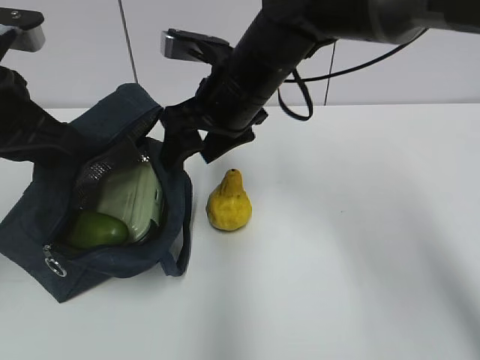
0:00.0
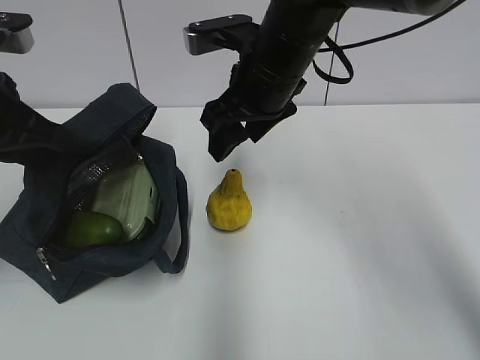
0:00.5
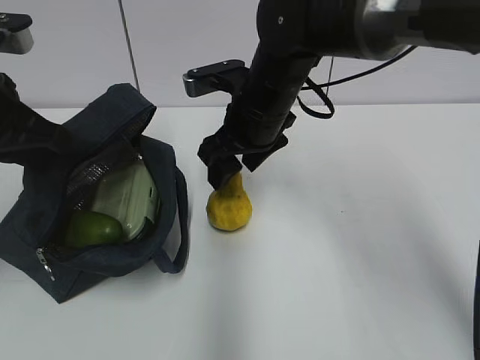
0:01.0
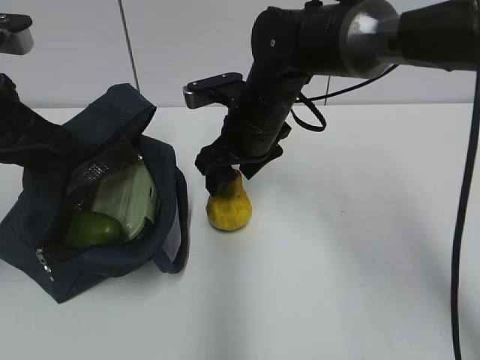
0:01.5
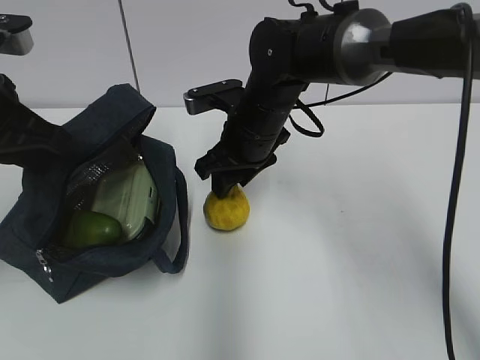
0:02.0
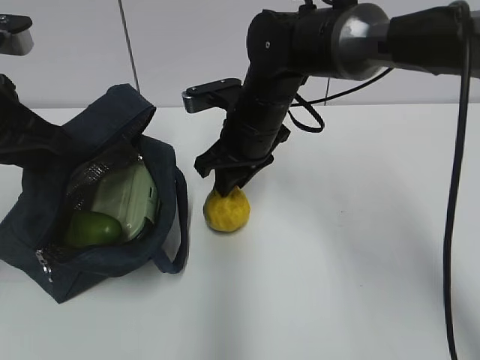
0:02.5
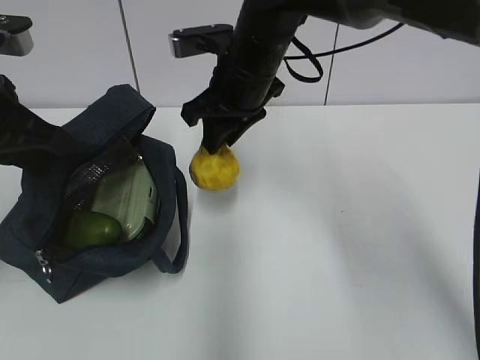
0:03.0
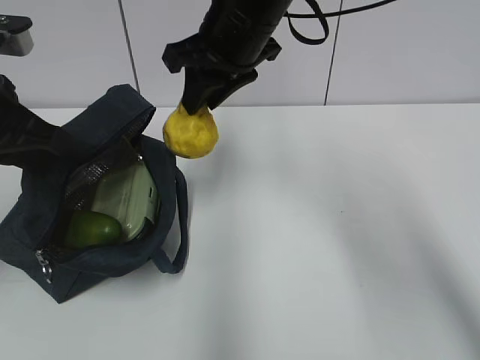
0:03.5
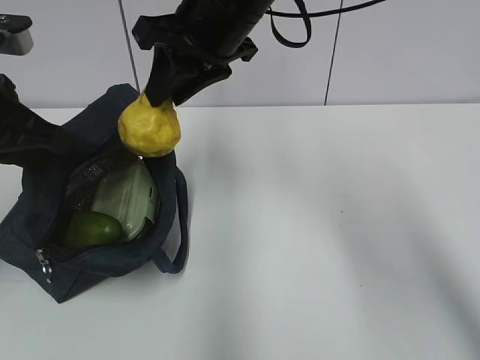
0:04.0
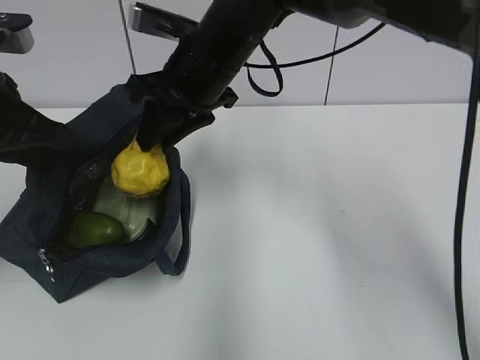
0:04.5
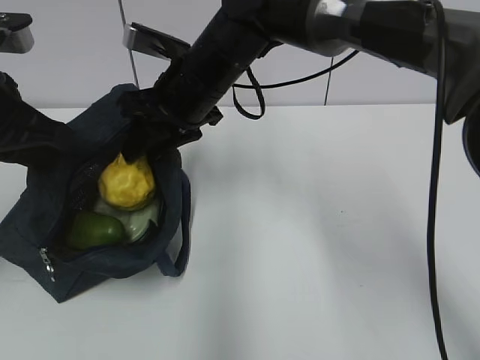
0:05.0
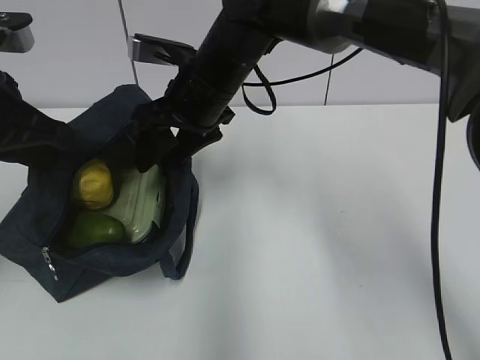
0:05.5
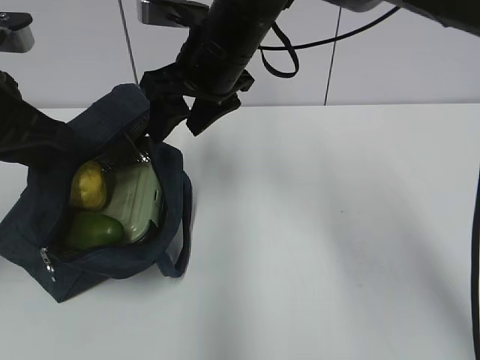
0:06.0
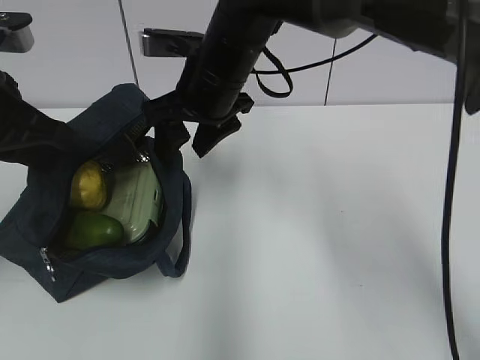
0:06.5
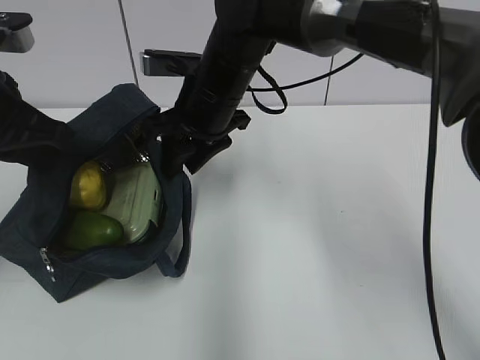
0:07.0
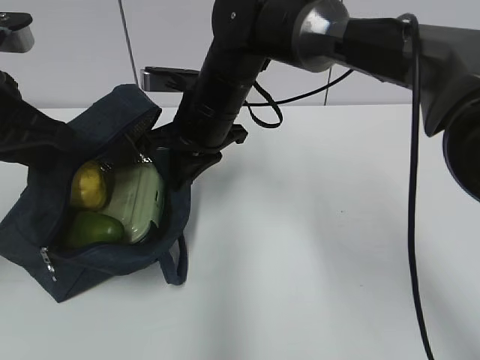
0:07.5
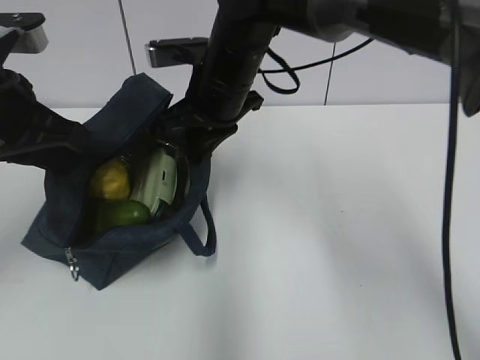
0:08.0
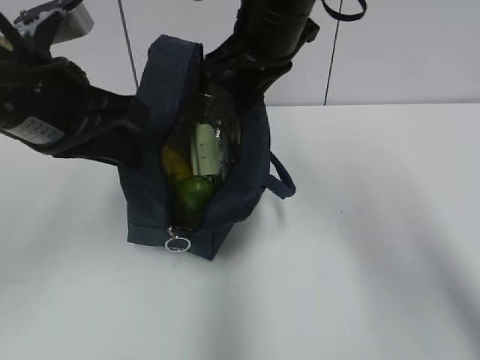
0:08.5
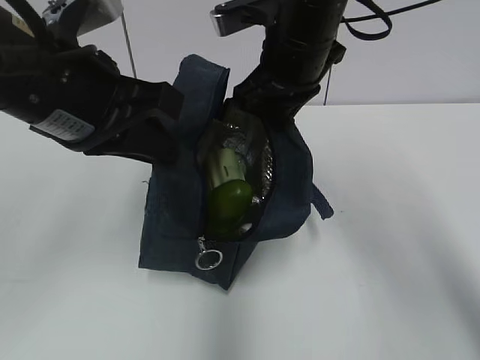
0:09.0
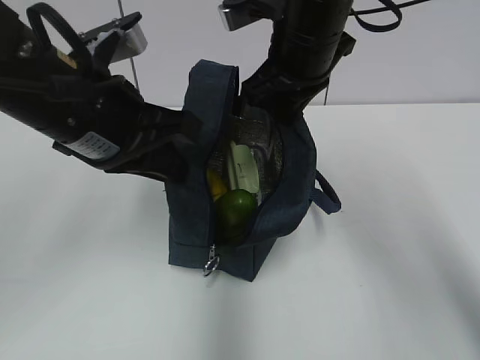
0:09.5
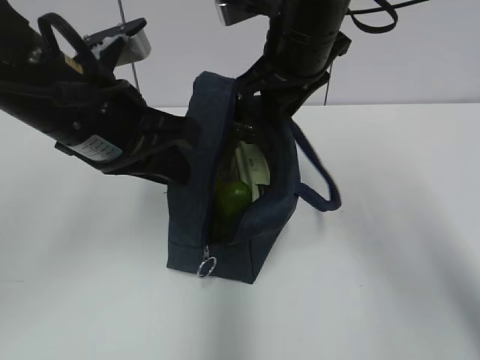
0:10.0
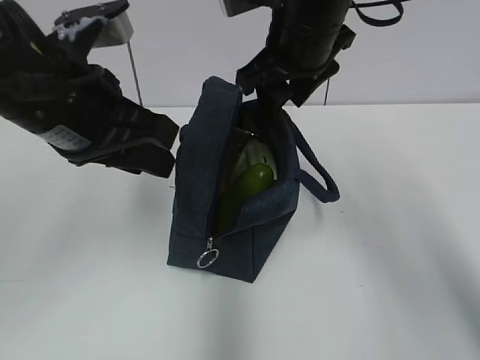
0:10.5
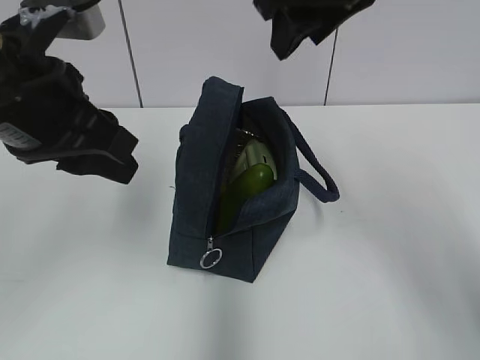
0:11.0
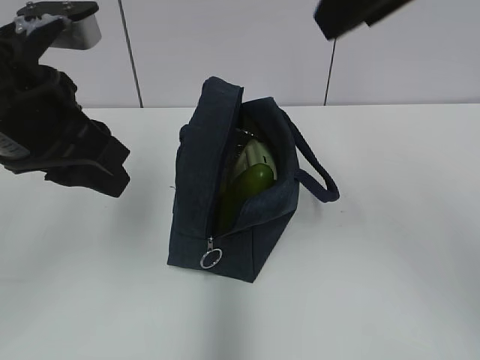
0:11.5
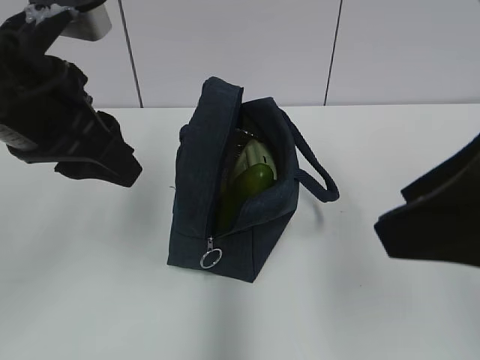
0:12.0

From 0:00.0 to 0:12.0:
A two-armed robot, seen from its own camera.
From 0:00.0 to 0:02.0: The right gripper goes roughly 5 cm downward.
From 0:02.0 to 0:04.0: The right gripper heads upward, covering roughly 15 cm.
From 0:04.0 to 0:06.0: The right gripper opens its fingers.
From 0:06.0 to 0:08.0: The right gripper closes.
From 0:08.0 to 0:10.0: The right gripper shifts approximately 10 cm to the right and upward; the left gripper moves to the right, roughly 10 cm.
From 0:10.0 to 0:12.0: The right gripper heads backward, covering some 25 cm, and opens its fingers; the left gripper shifts by about 5 cm, and opens its fingers.

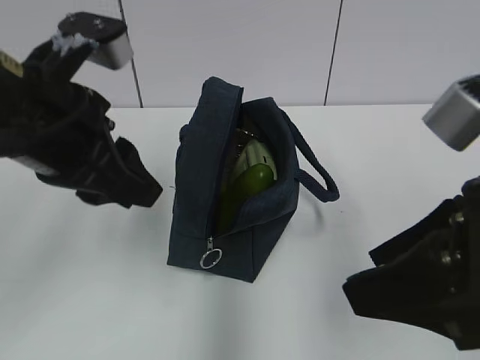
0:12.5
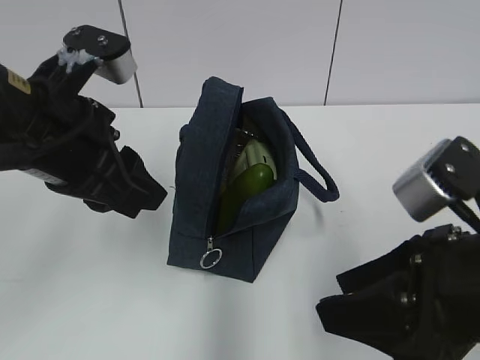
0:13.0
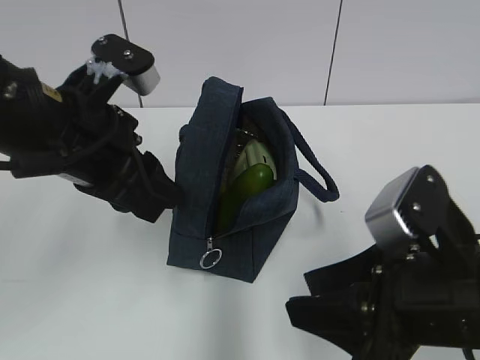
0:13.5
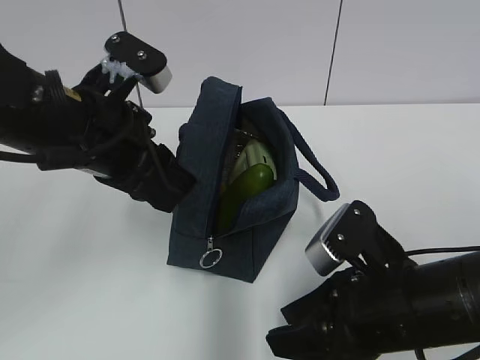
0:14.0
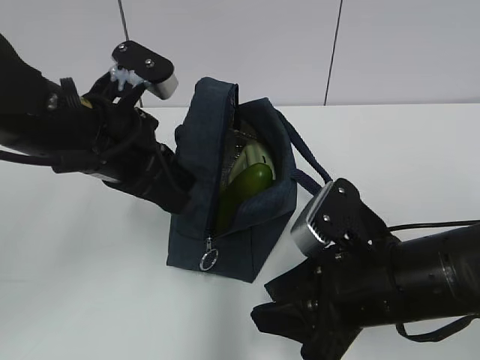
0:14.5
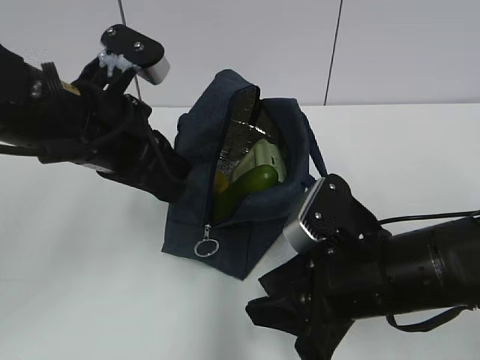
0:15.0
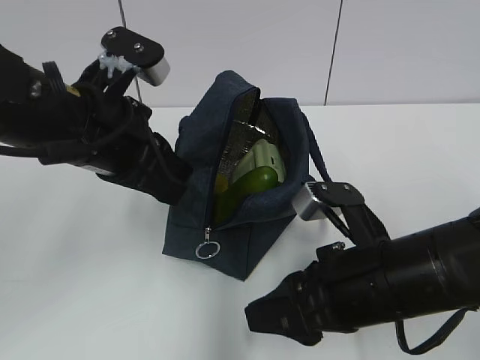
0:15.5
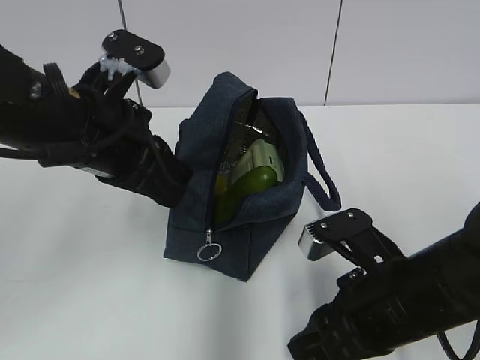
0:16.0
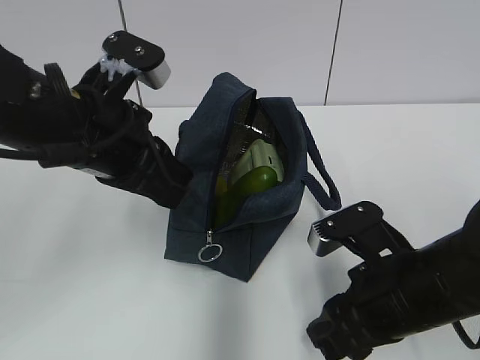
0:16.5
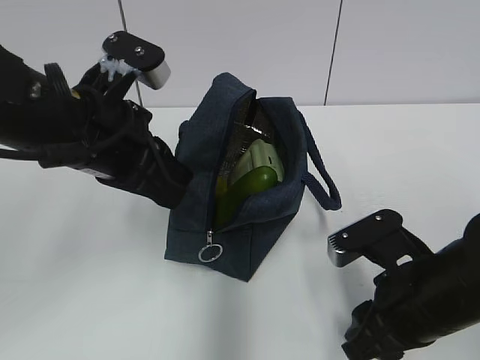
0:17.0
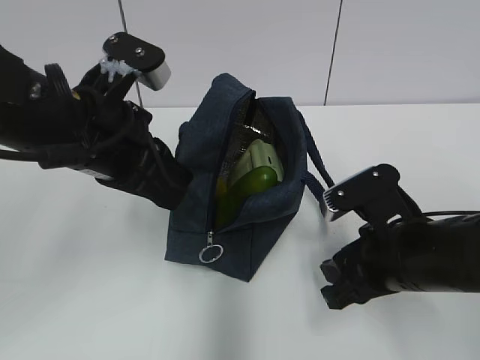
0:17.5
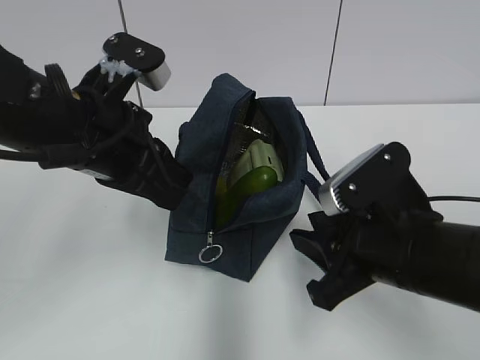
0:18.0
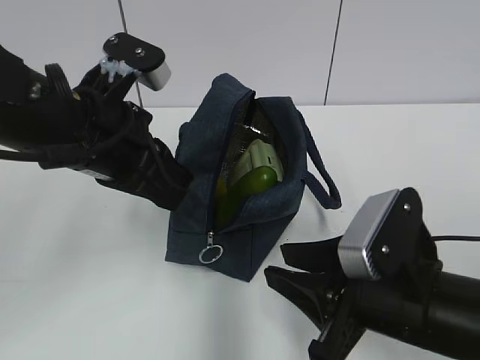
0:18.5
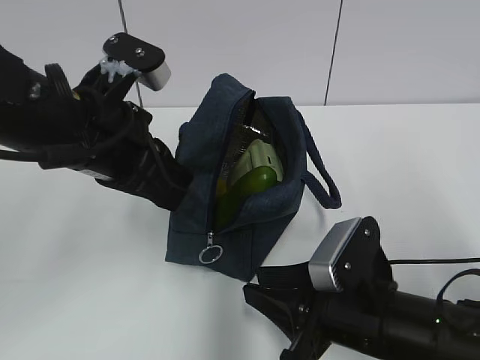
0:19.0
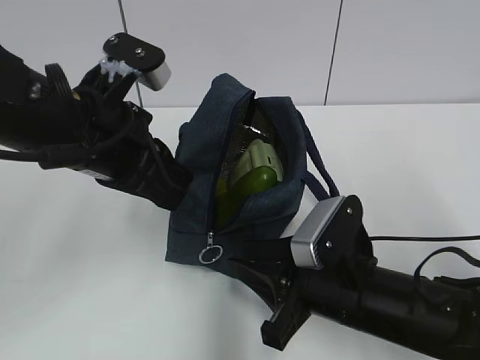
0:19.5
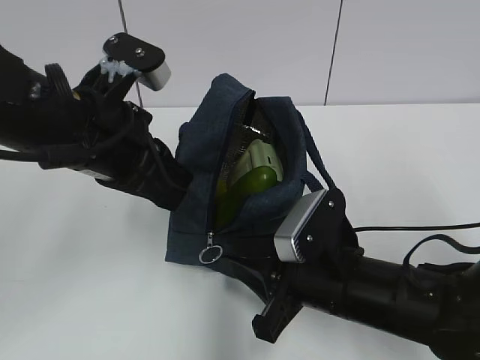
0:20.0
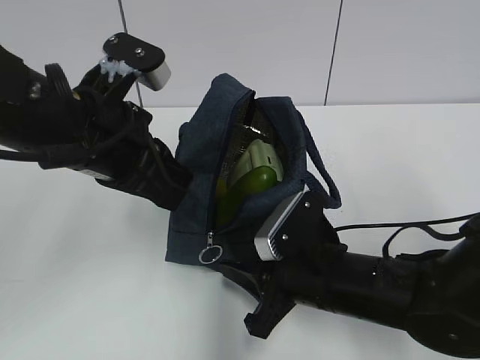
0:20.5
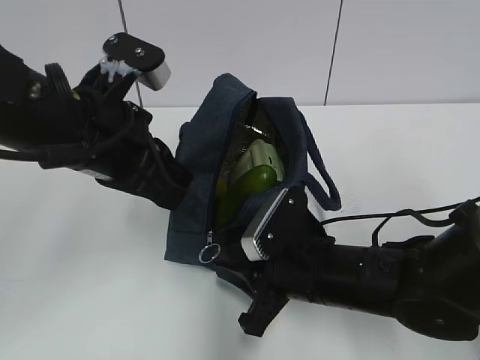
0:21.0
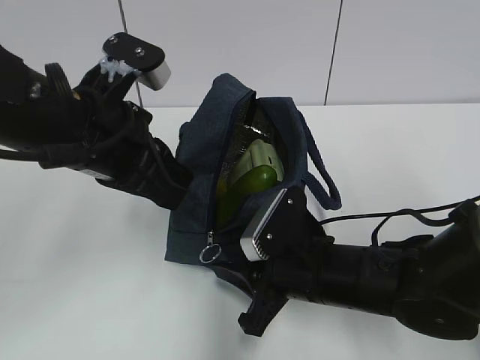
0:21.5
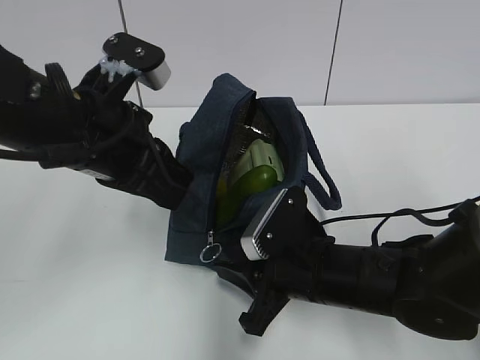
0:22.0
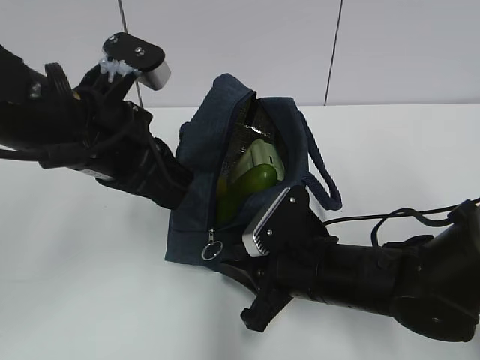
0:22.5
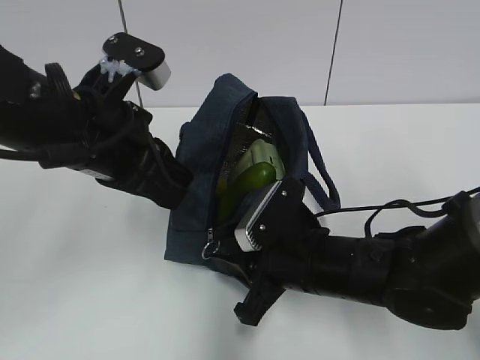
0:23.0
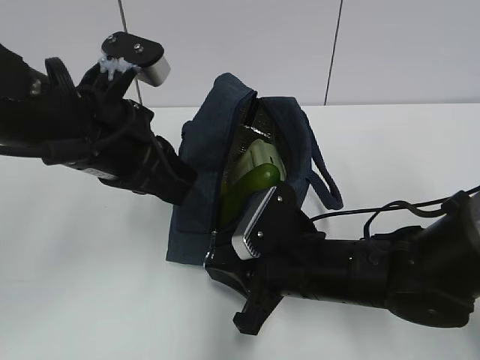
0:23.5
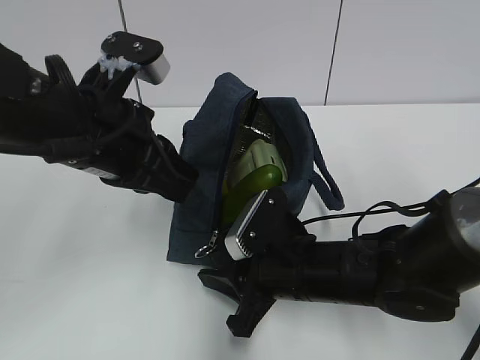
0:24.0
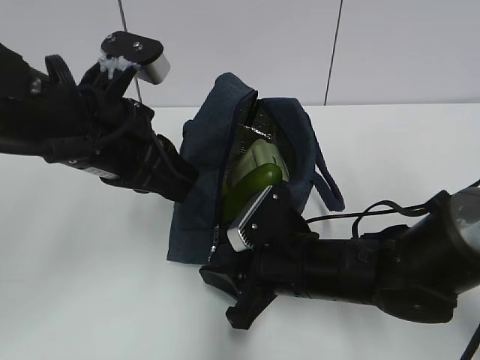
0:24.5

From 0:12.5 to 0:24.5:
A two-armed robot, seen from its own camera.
From 0:12.5 to 0:14.5: The right gripper moves downward and forward, roughly 15 cm, while the left gripper moves approximately 5 cm, and closes.
From 0:18.5 to 0:20.5: The right gripper shifts about 10 cm forward and downward.
From 0:20.5 to 0:24.5: The grippers make only small movements.

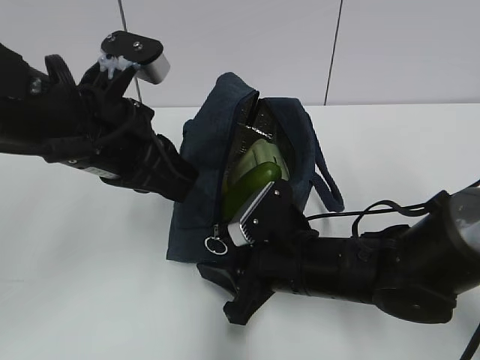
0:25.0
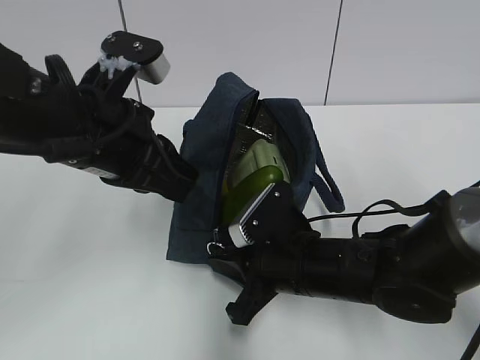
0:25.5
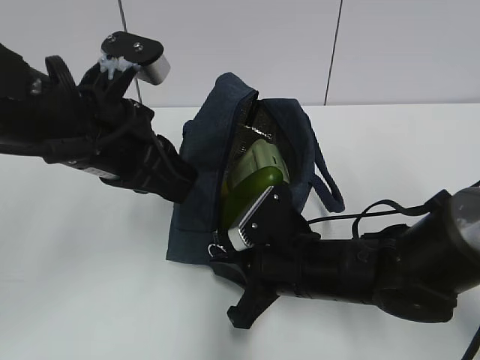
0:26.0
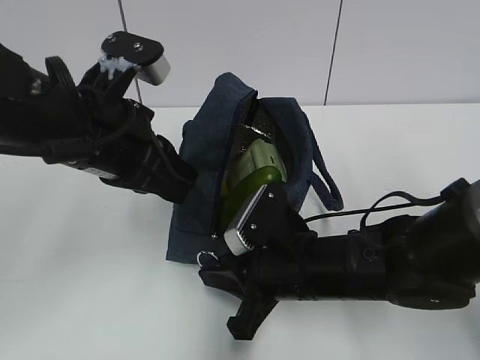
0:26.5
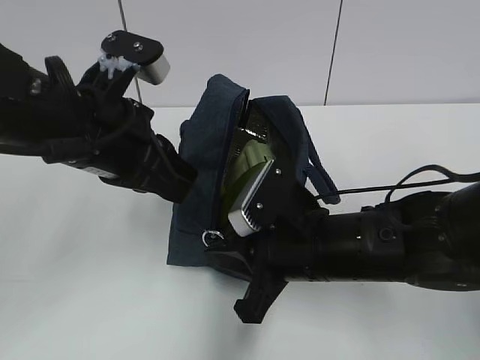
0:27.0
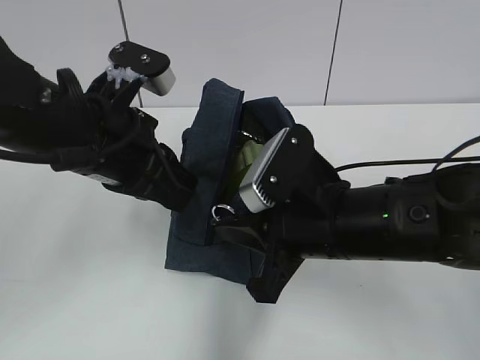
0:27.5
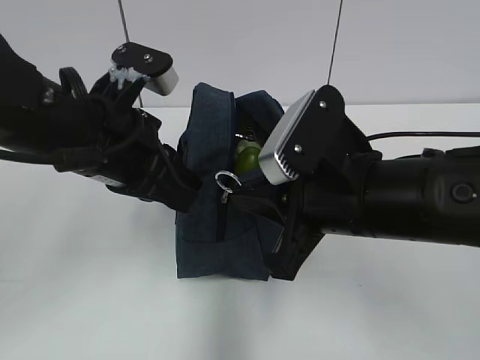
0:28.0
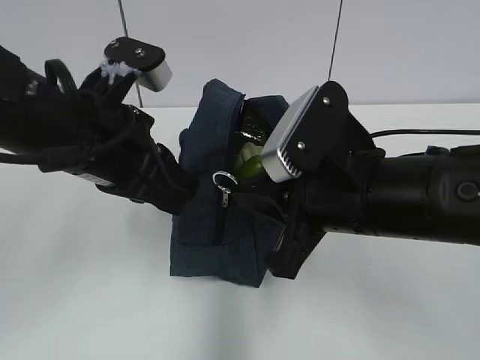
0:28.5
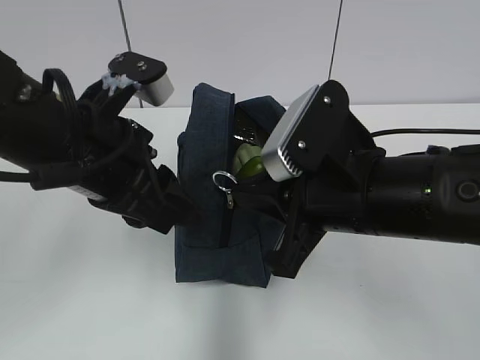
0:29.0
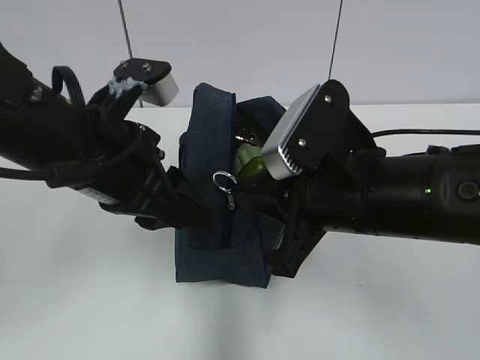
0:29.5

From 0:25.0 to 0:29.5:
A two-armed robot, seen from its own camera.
From 0:25.0 to 0:27.0: The right gripper closes.
From 0:27.0 to 0:29.5: The left gripper opens its fingers; the right gripper heads upward, covering roughly 10 cm.
